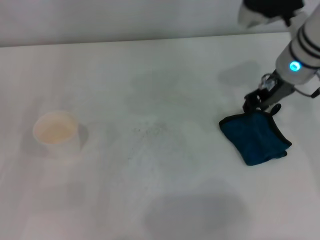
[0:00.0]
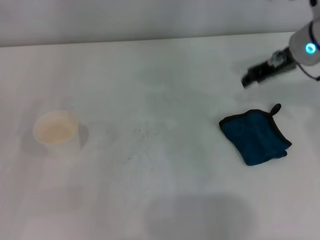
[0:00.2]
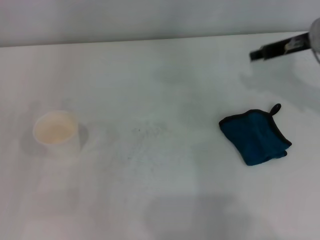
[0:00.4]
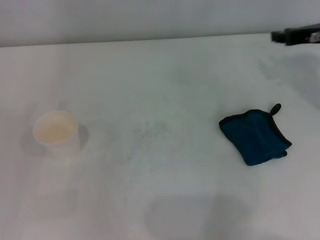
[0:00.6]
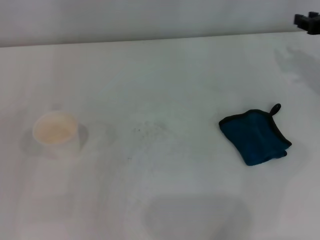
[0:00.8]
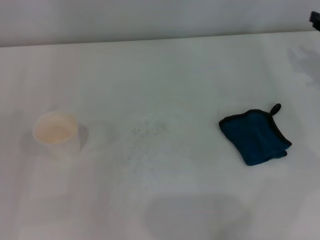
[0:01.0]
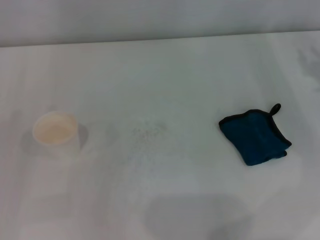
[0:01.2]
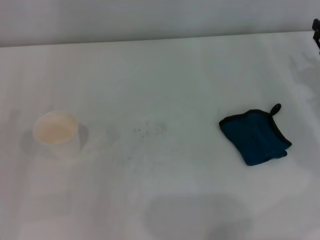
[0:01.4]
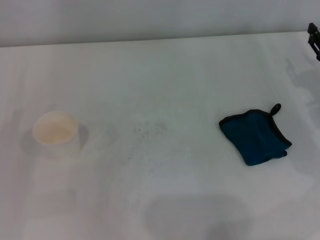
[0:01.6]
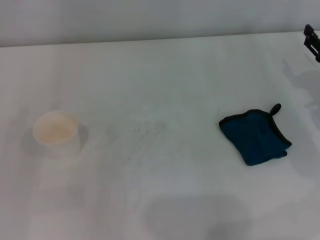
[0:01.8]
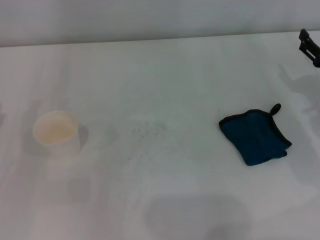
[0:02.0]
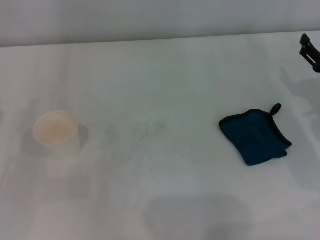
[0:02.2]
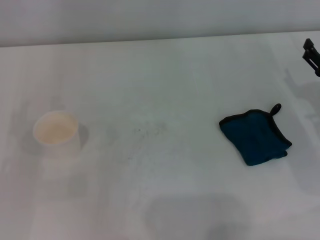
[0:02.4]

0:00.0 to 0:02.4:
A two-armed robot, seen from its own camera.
0:00.0 to 0:01.2: The right gripper is displaced to the right and downward by roughly 20 cm.
0:01.2 to 0:02.4: The right gripper is displaced backward and downward by some 5 cm, and opens its fingers.

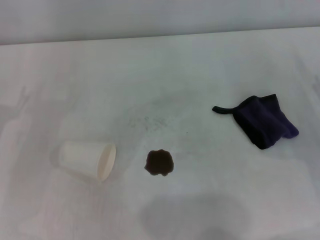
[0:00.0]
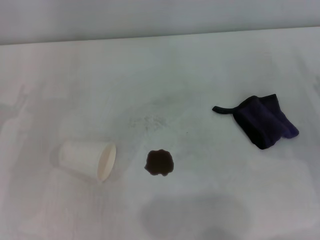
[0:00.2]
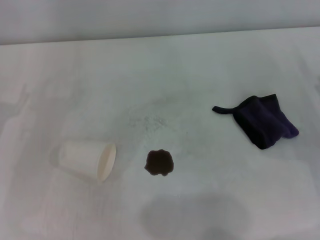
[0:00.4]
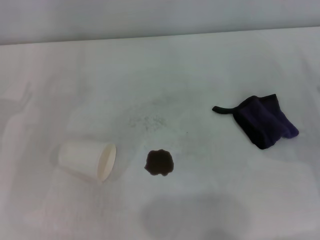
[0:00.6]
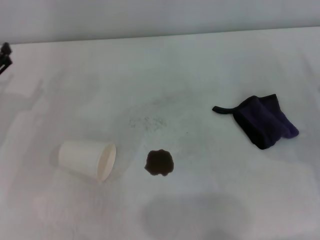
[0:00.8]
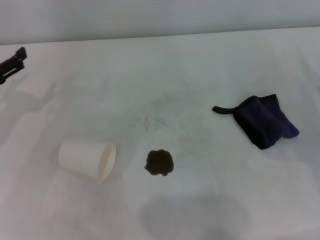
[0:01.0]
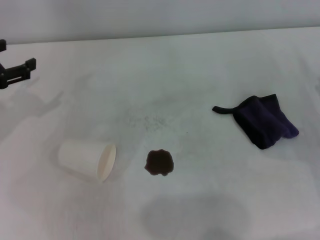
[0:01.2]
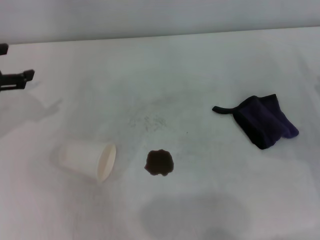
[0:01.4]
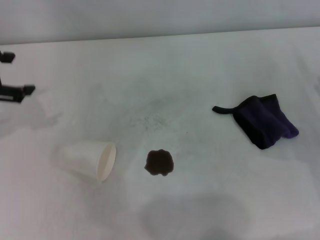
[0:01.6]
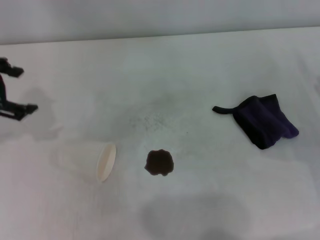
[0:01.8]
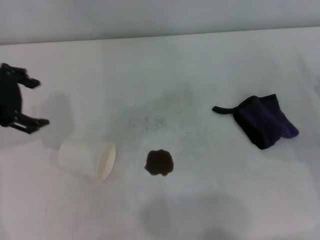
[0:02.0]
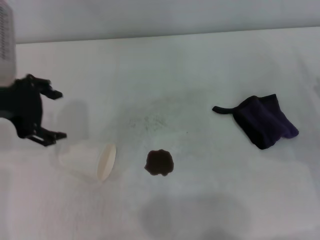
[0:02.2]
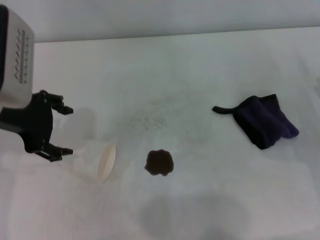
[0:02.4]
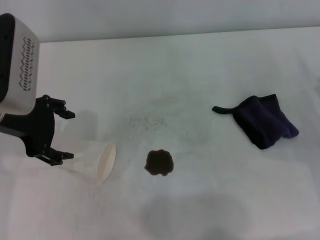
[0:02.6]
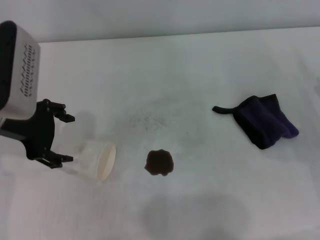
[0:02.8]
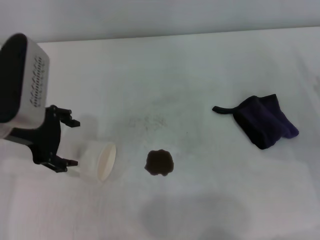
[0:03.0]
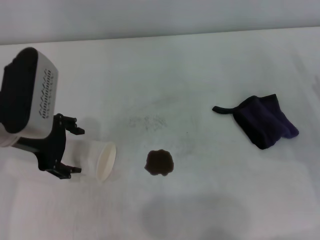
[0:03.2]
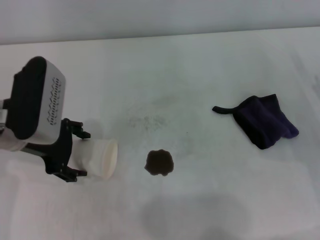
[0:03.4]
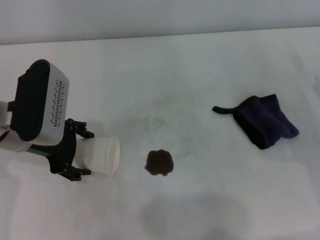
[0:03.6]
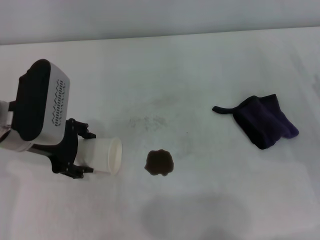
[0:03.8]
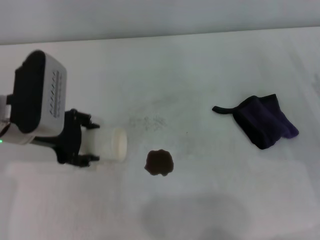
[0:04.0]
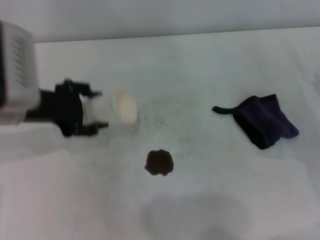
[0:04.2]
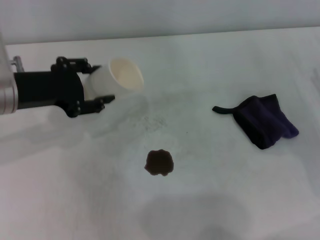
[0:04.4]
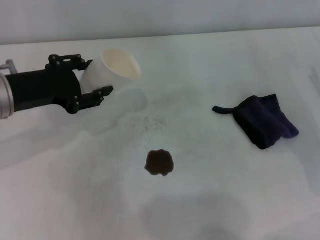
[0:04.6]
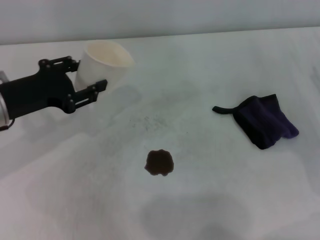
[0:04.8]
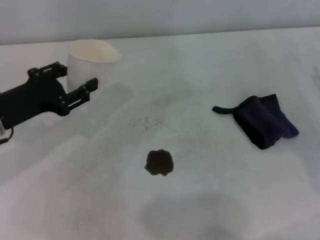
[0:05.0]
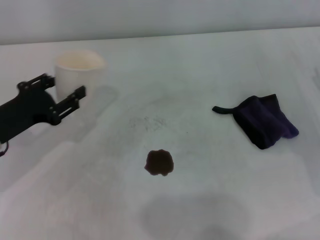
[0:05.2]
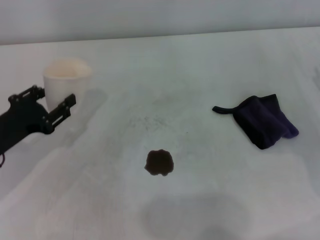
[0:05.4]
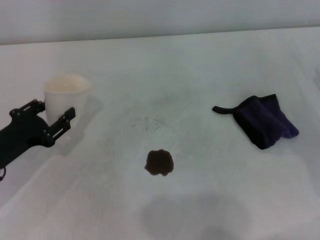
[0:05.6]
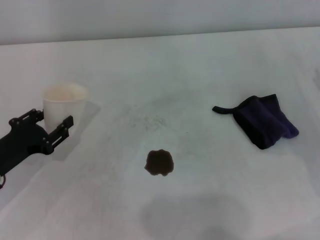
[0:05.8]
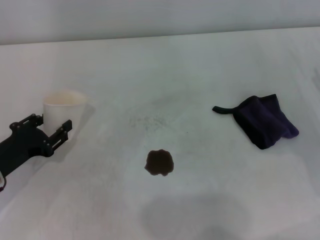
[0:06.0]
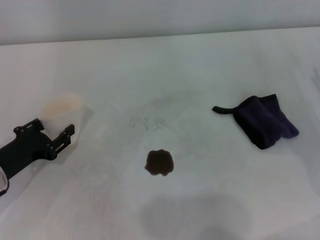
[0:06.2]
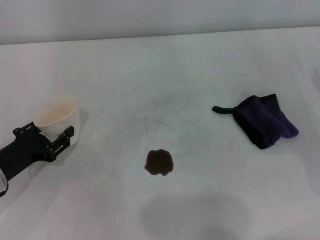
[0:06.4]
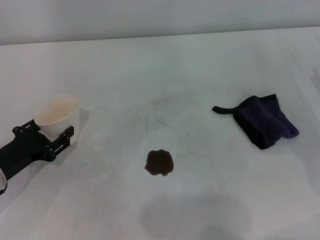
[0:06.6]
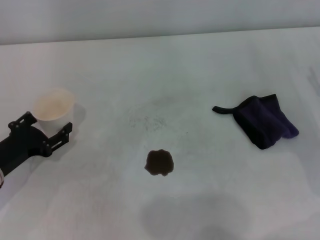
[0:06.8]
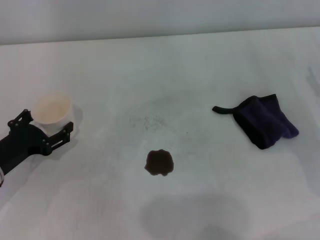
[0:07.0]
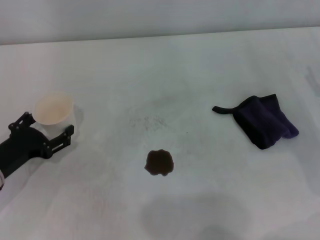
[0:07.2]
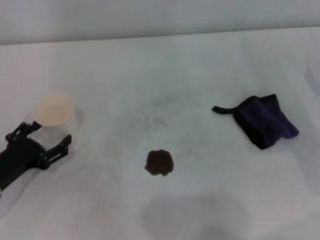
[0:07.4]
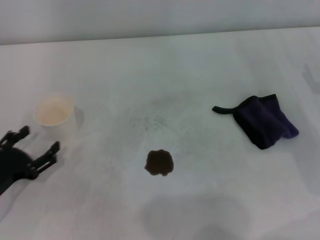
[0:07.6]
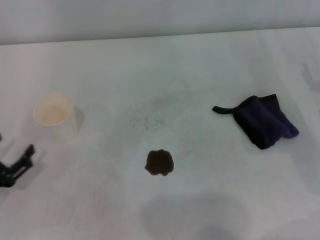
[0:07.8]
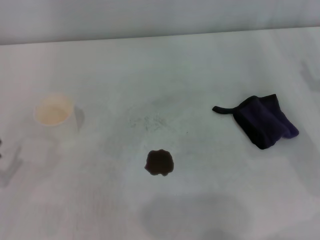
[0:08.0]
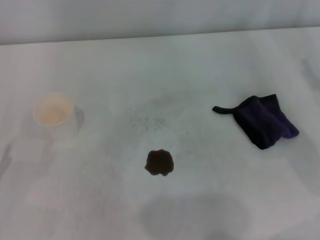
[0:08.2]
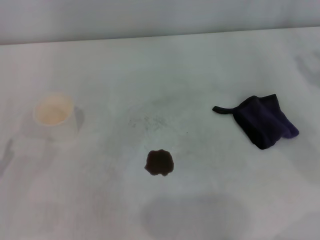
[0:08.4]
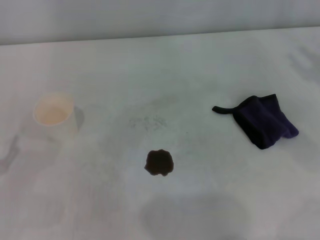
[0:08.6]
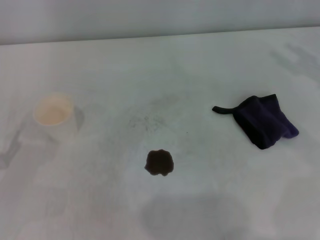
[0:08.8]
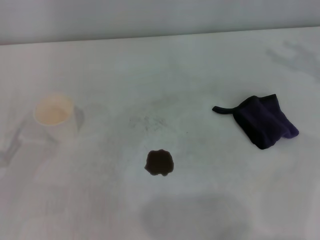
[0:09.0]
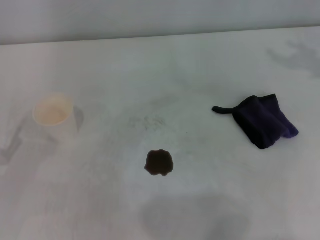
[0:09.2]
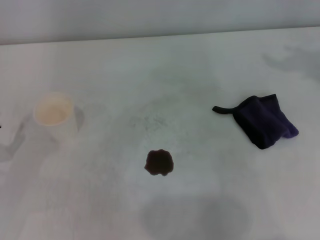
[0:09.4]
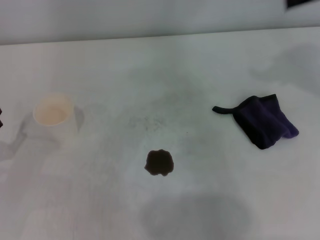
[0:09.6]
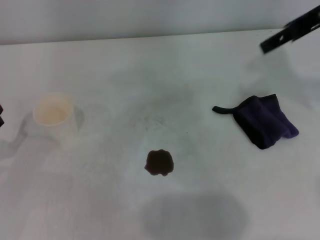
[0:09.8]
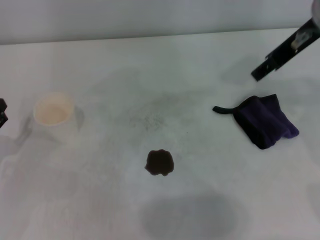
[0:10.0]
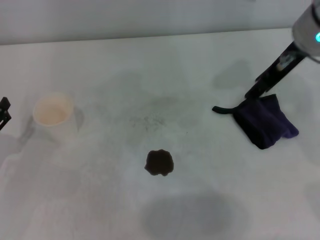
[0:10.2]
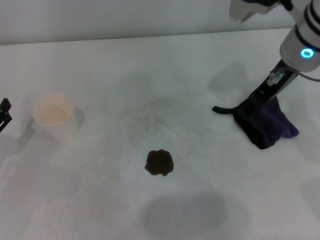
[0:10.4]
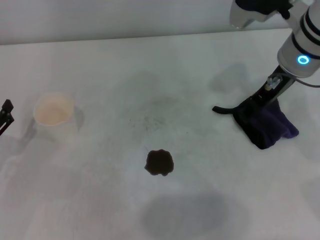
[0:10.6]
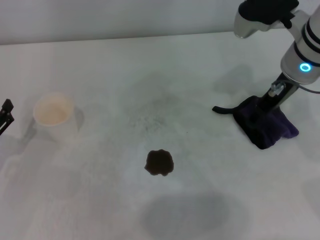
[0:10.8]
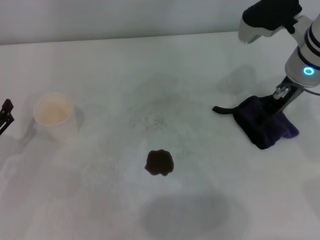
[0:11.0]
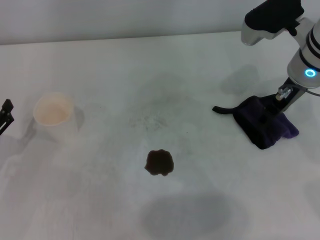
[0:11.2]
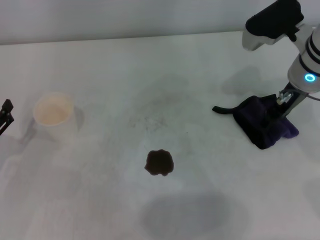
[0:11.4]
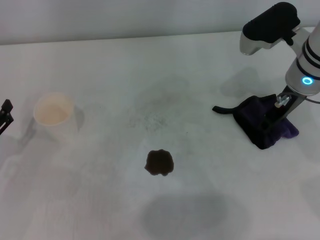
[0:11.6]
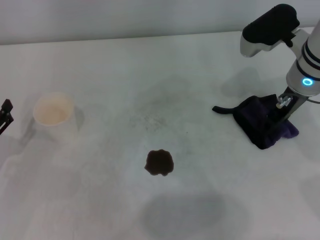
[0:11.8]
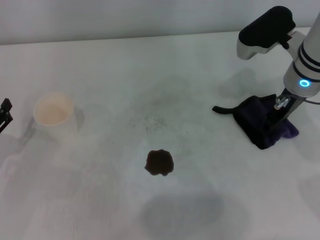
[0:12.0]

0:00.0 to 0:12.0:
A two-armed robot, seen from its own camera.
Step, 0:00.0 to 0:03.6: Grasp the paper cup with the left gripper.
Step, 0:04.0 to 0:07.0: Stand the paper cup upright with the left gripper.
0:00.0 to 0:01.6: The left gripper goes approximately 15 cm upward.
0:01.6 to 0:03.0: The left gripper goes about 10 cm to the right.
0:03.0 to 0:04.4: The left gripper closes.
0:04.4 to 0:06.0: The left gripper moves downward, backward and to the left, roughly 15 cm, and closes.
0:06.0 to 0:07.6: The left gripper opens.
0:09.0 to 0:10.4: The right gripper travels to the left by approximately 20 cm.
0:10.4 to 0:12.0: The right gripper moves downward, about 5 cm.

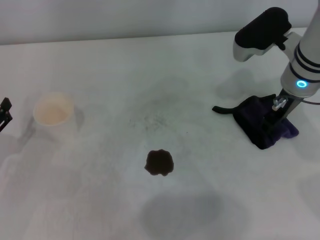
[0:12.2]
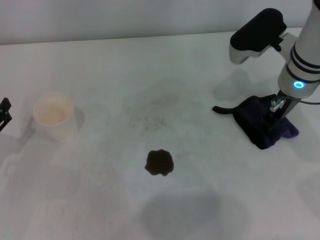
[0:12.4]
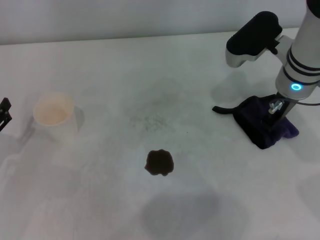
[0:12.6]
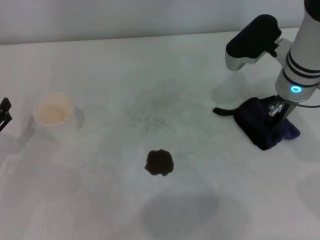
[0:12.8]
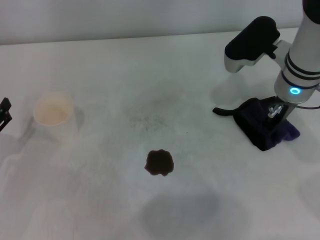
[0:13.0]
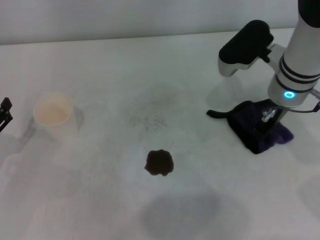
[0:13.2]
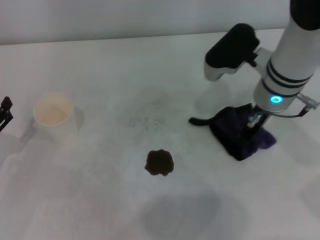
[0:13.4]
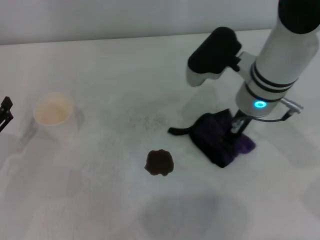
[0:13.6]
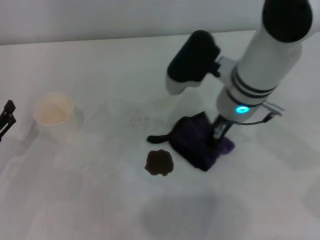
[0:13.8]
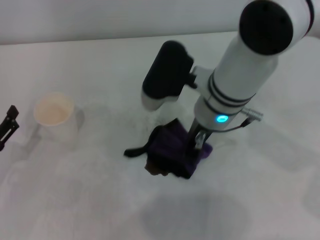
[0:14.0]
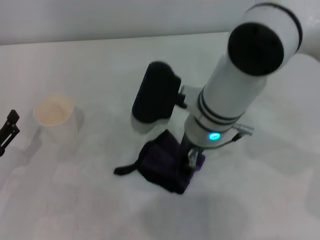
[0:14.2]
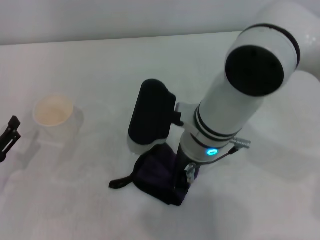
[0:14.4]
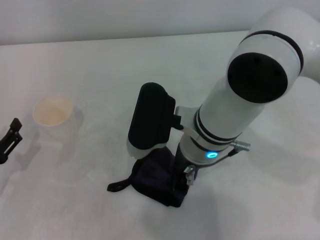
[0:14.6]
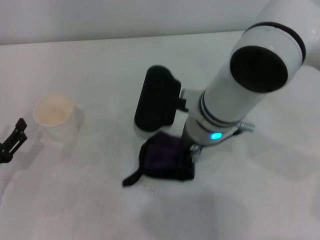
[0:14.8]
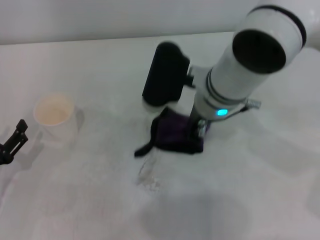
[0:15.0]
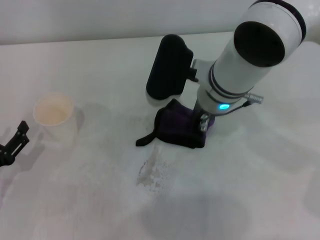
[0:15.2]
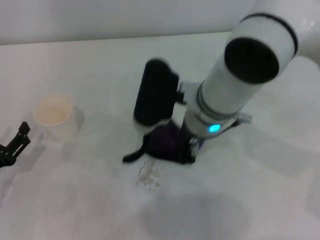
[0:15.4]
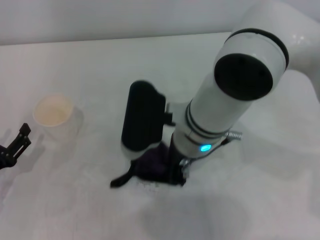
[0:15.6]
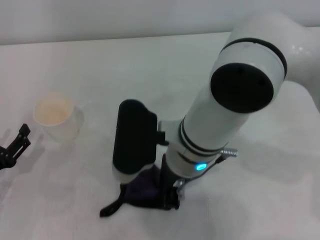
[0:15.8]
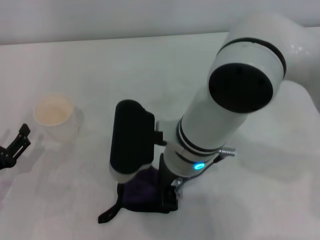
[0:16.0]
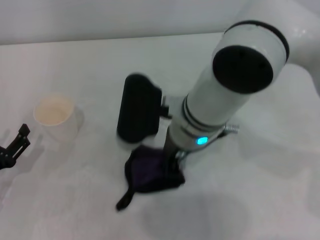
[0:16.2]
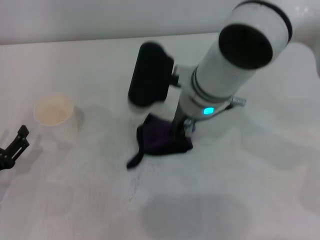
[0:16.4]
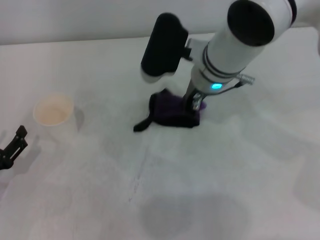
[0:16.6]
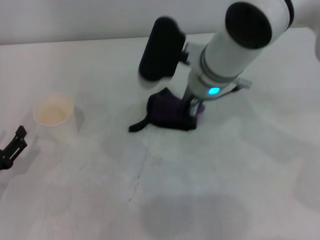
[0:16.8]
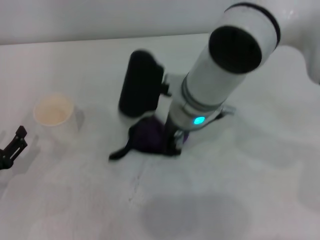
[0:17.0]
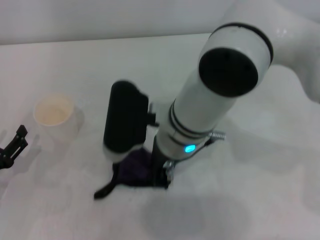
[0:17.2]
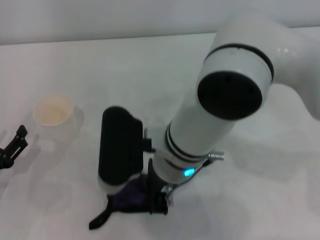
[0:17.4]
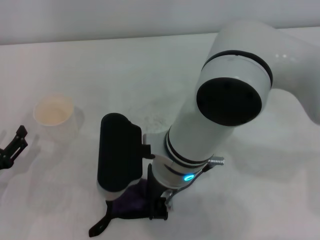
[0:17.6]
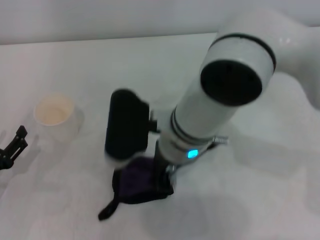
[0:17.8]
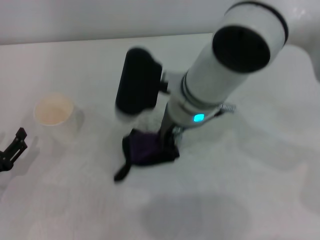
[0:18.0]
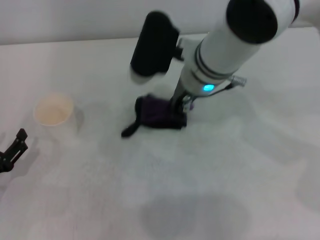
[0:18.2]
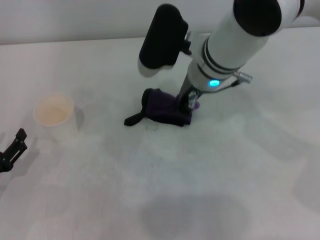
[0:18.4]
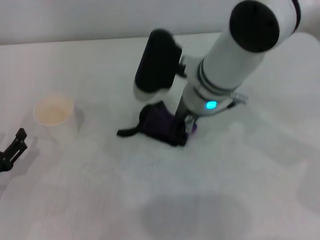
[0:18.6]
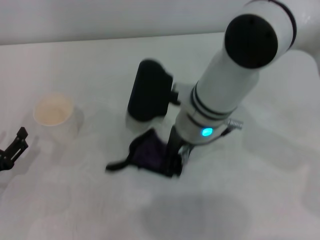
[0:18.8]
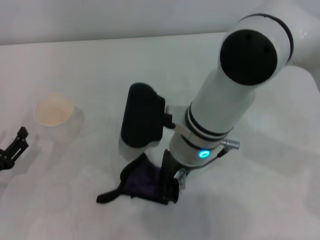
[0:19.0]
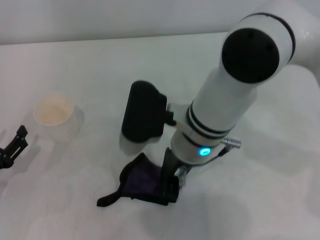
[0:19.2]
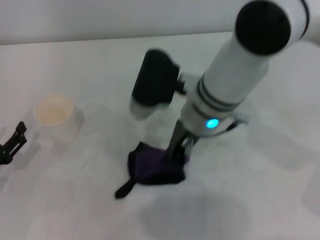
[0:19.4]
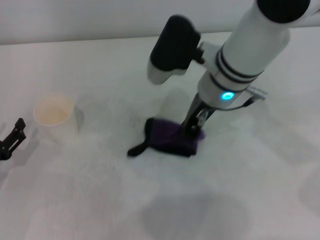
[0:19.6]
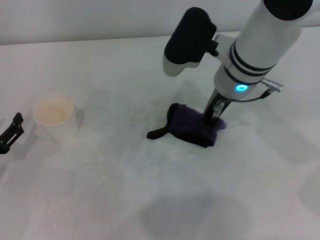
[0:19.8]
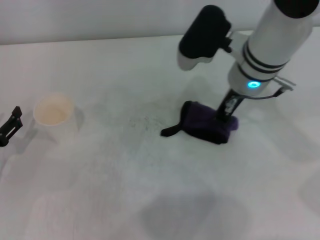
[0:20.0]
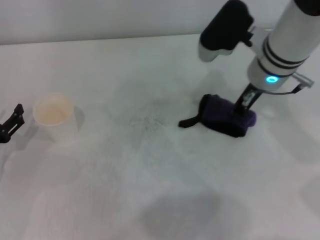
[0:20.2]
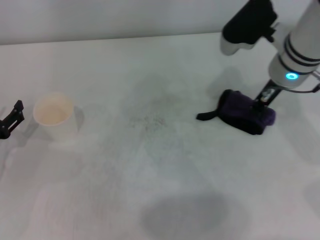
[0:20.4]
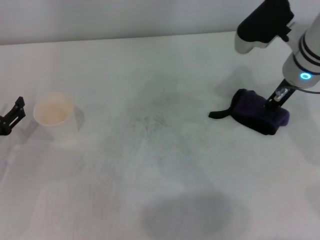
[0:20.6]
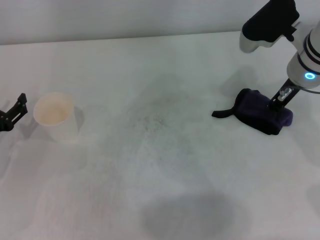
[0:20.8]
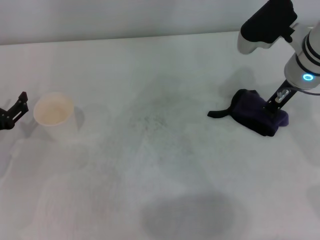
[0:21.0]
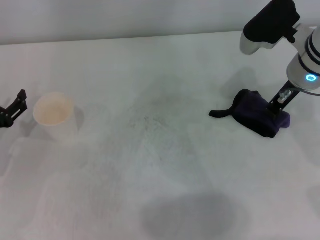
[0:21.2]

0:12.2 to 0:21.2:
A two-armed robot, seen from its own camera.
Step, 0:13.0 to 0:20.8: Wipe the stains off the table with the right gripper.
0:12.2 to 0:13.8: The right gripper moves to the left, some 10 cm, and closes.
0:15.2 to 0:16.6: The right gripper moves some 10 cm backward and comes back.
0:16.6 to 0:18.2: The right gripper goes backward and returns, approximately 10 cm each way.
0:18.2 to 0:19.8: The right gripper moves about 10 cm backward and comes back.
0:19.8 to 0:21.2: The right gripper travels to the right by approximately 10 cm.
